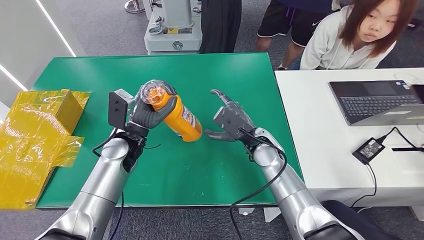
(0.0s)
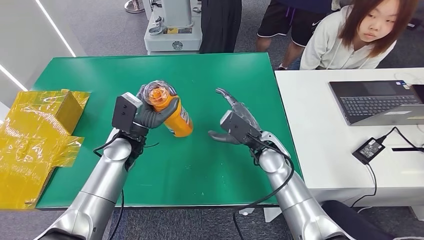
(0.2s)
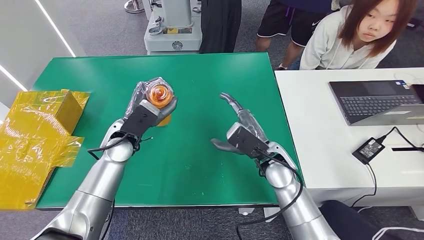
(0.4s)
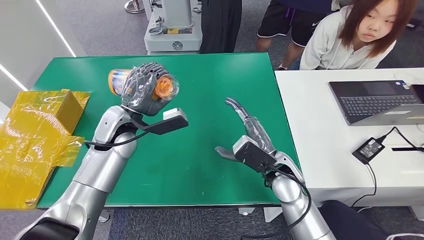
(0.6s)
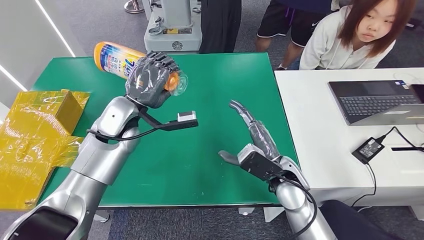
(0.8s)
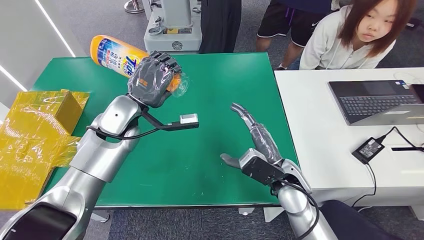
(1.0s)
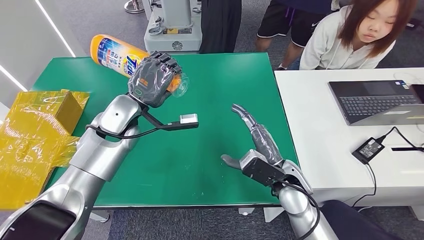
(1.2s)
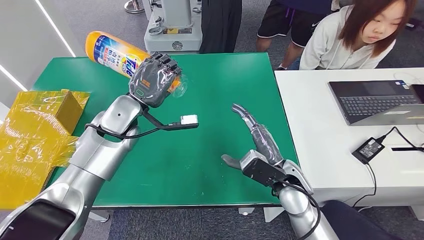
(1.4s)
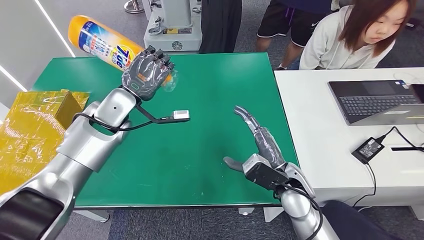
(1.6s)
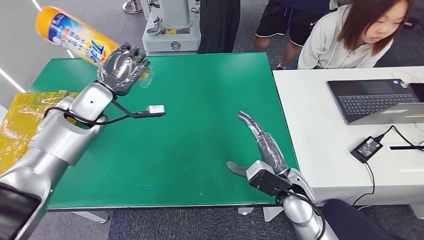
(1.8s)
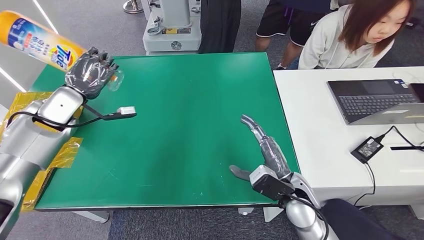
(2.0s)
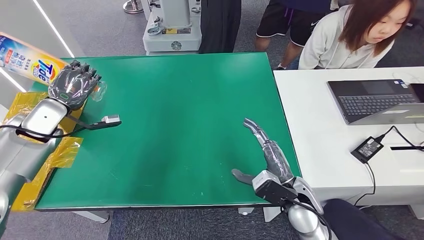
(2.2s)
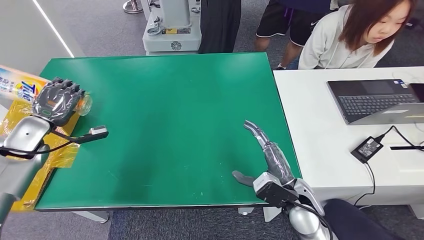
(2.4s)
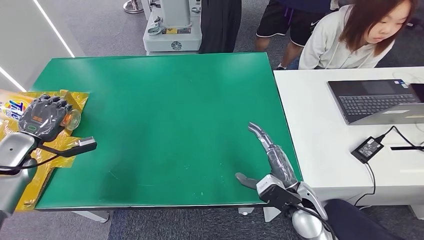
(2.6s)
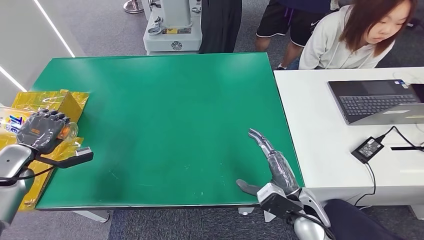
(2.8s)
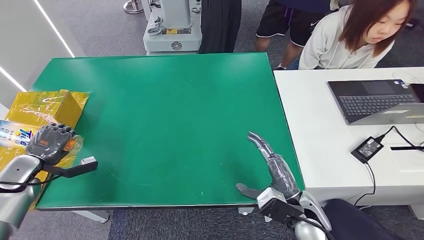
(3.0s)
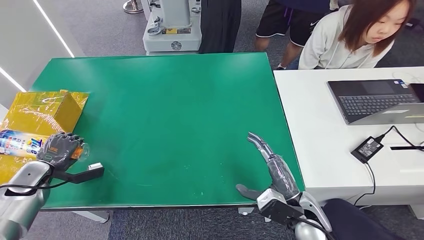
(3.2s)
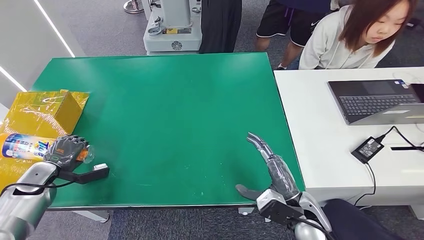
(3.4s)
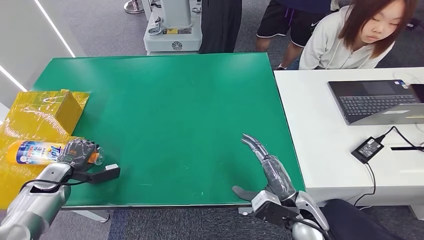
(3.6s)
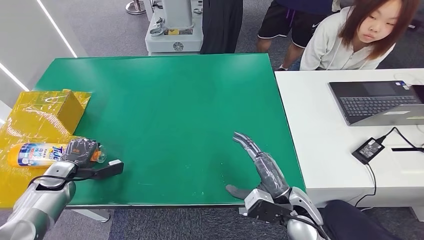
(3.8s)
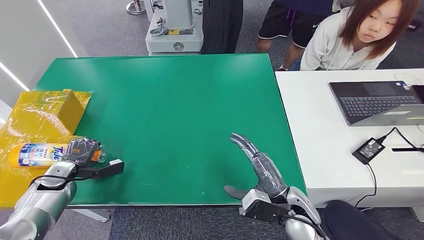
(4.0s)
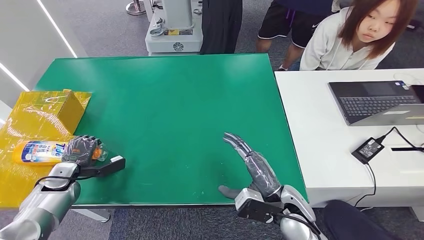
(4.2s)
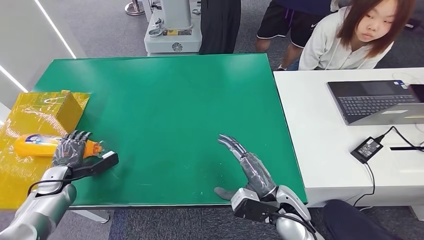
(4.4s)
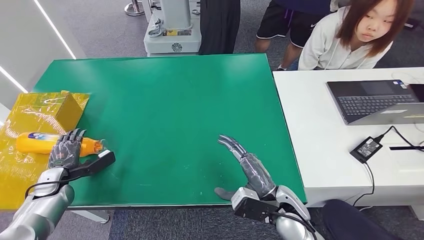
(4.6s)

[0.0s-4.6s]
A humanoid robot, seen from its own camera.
Step, 0.0s to 4.6s: Turn the bottle to the front side.
3.0s to 4.6s: The left hand moves downward, approximately 5 cm.

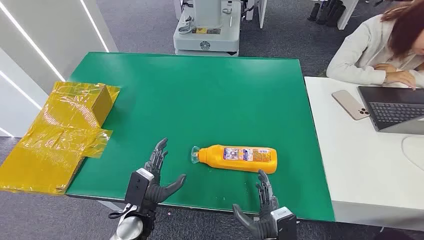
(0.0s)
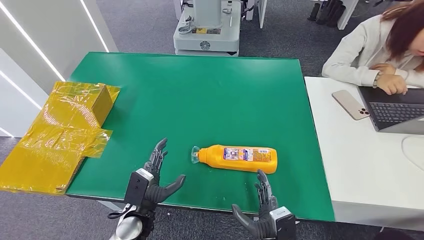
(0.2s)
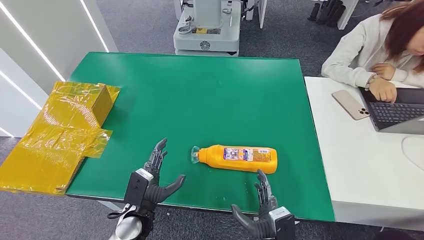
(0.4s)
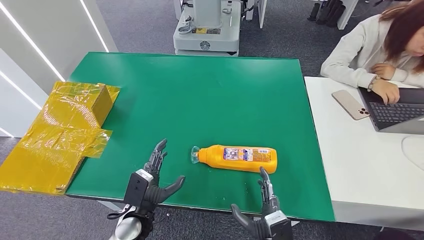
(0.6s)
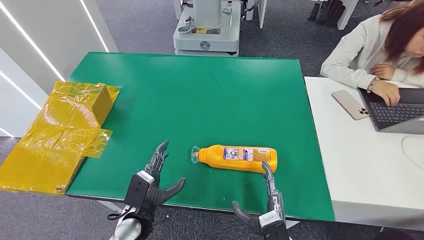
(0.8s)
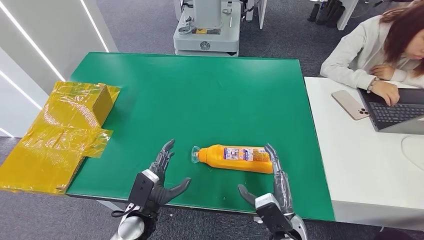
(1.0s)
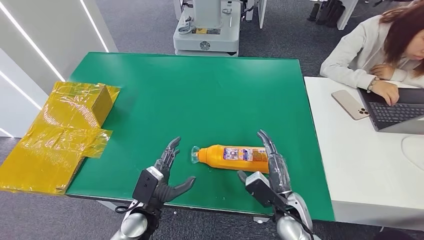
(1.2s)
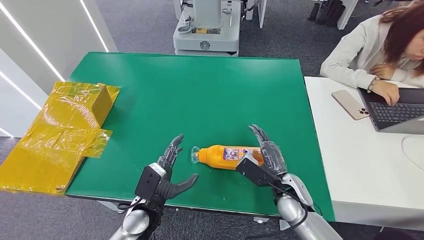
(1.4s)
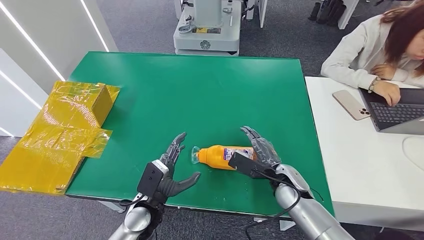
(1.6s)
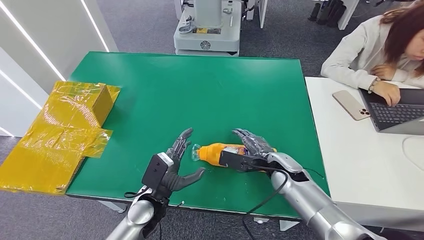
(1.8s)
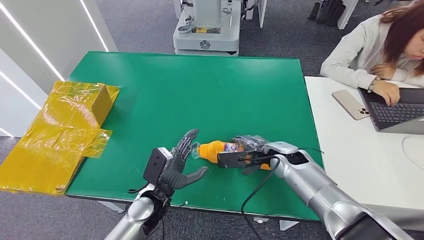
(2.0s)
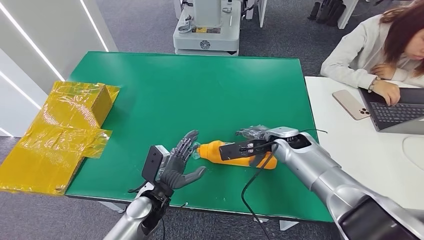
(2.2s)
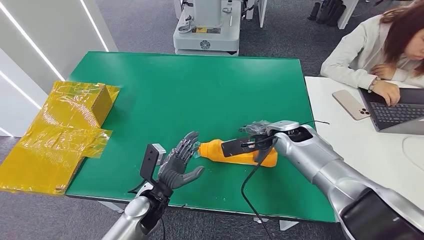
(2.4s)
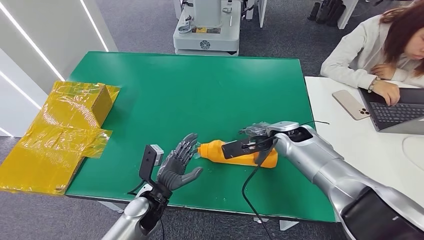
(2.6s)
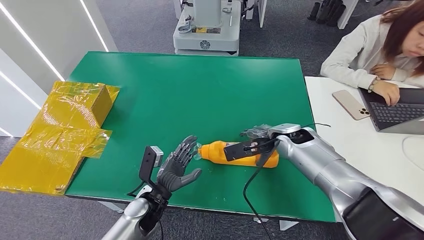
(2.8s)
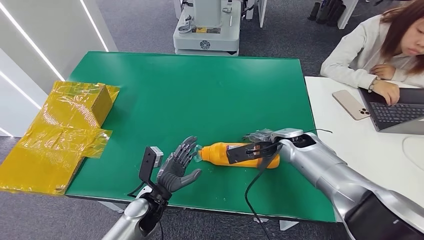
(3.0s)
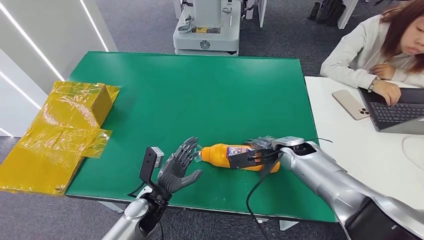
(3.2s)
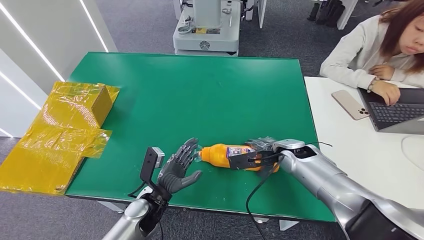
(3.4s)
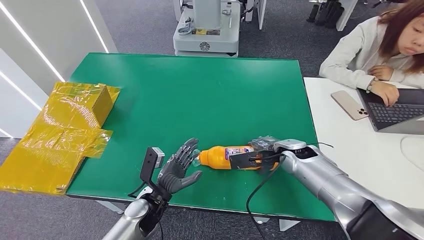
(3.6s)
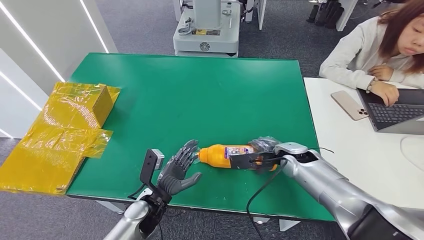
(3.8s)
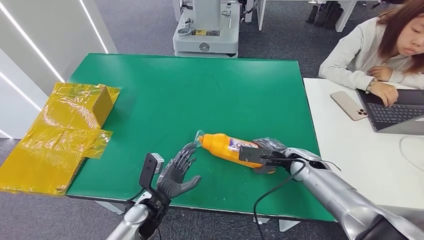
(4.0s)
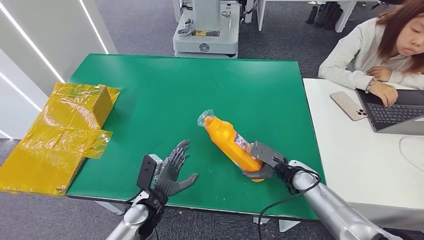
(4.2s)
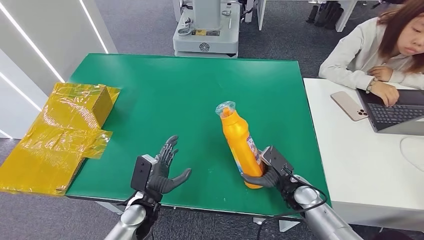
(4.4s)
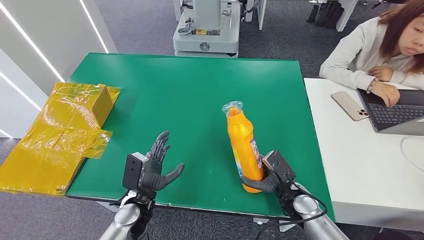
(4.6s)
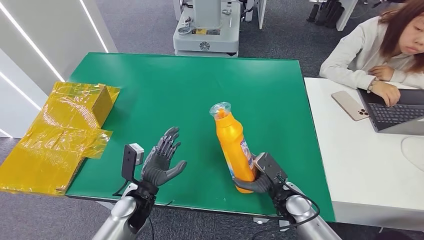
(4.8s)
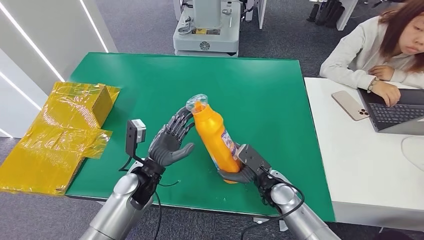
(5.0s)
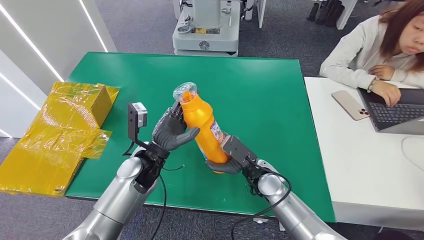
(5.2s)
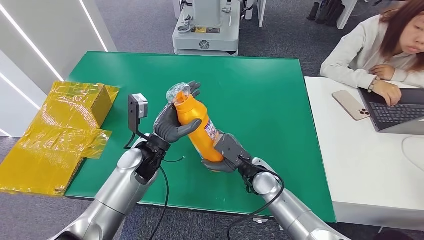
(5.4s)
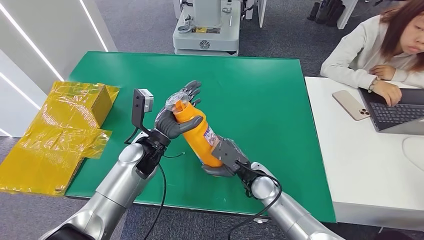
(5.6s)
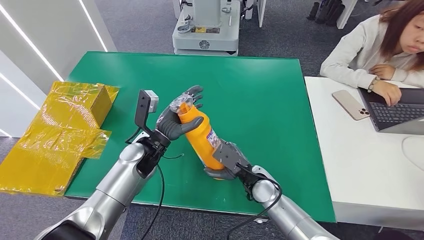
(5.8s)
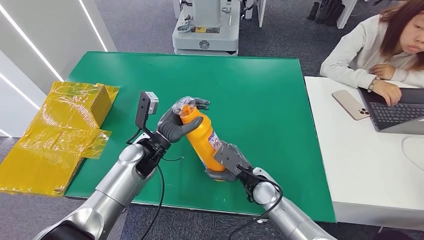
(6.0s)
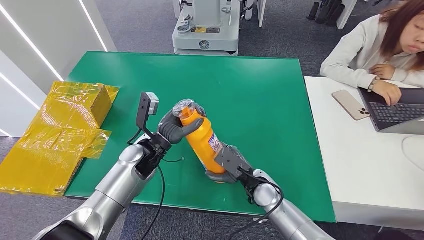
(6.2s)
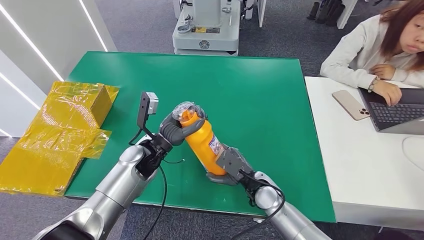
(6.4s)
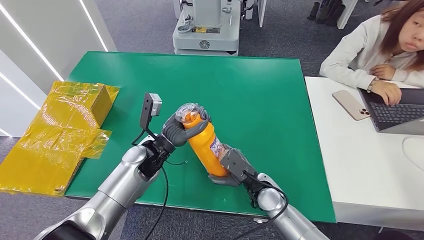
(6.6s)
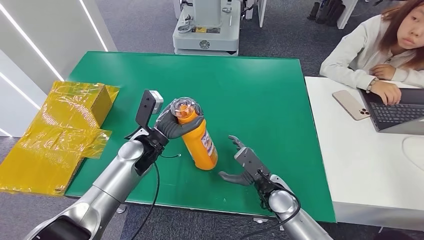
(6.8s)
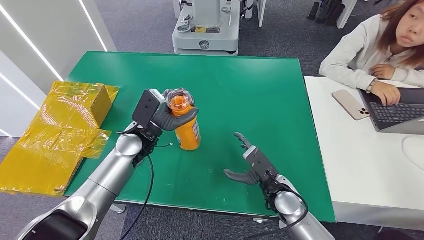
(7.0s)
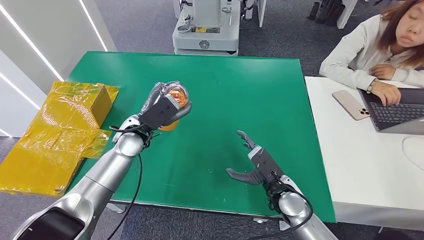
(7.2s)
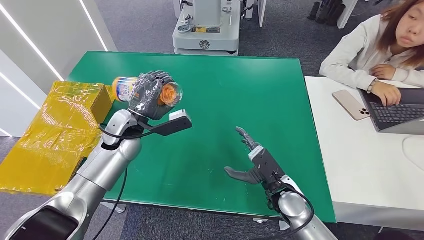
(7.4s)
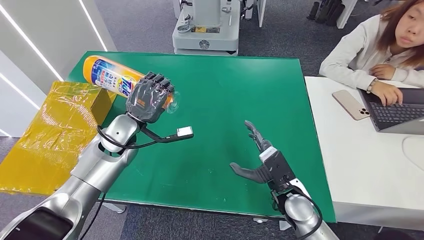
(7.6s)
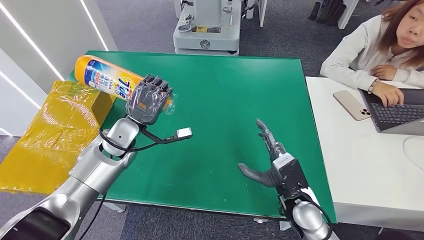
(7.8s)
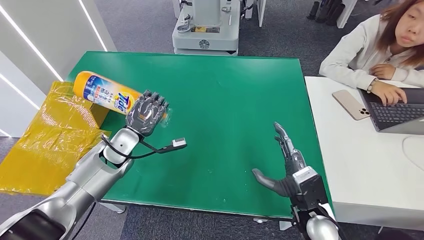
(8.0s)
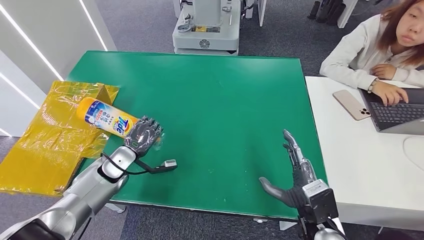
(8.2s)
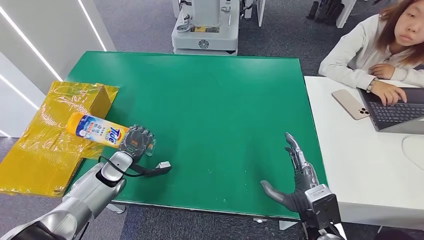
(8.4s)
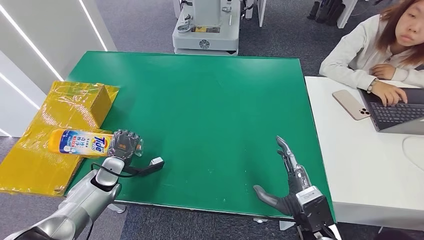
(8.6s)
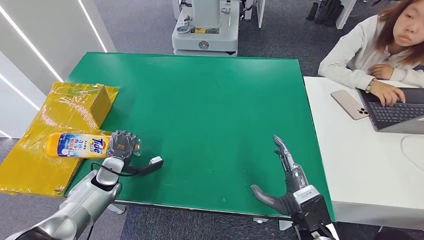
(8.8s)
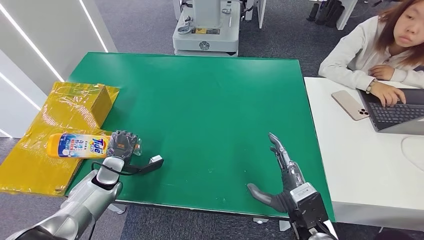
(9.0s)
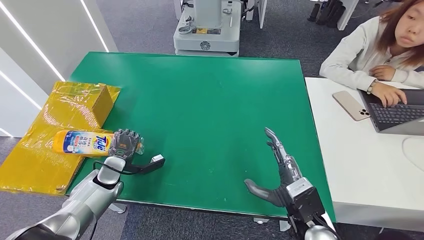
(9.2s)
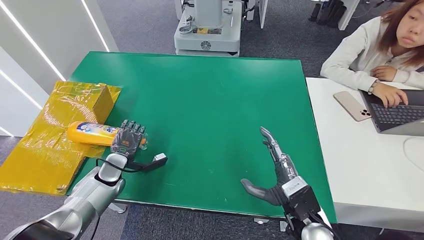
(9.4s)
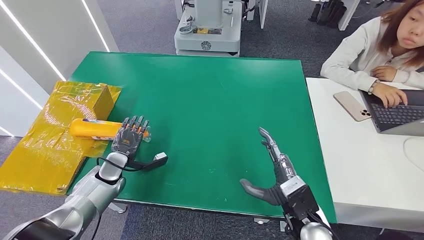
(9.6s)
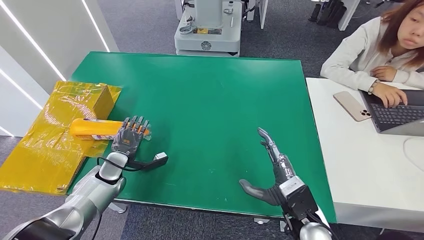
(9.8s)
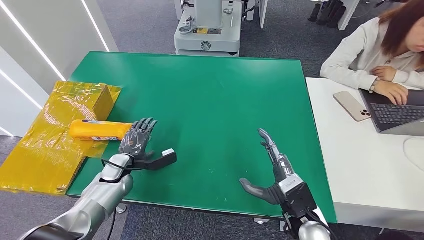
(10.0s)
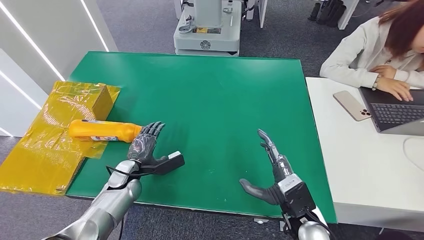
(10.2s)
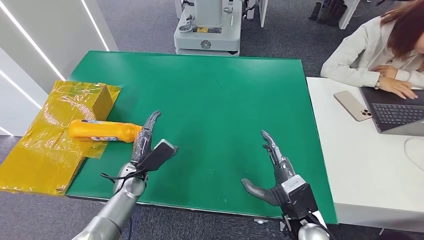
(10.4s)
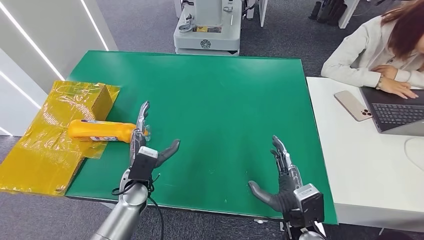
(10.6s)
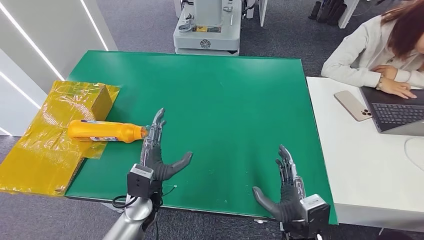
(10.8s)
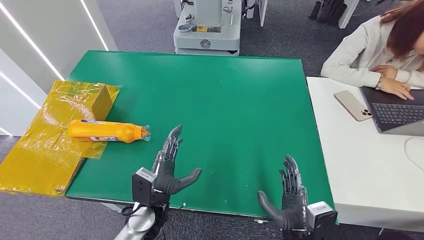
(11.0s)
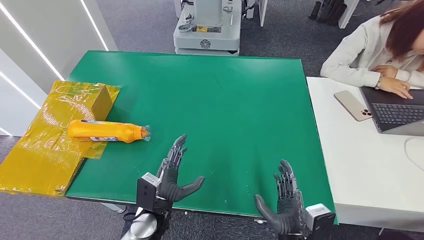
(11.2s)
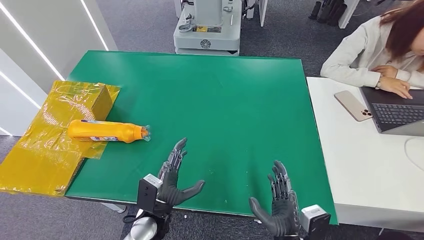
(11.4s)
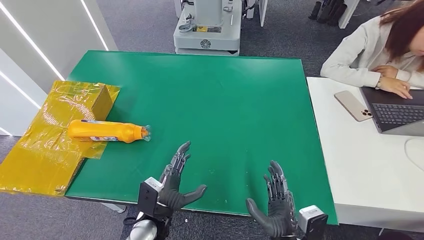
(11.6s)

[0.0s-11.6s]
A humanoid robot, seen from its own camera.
Step, 0.0s to 4.4s: Pick up the bottle from the table.
Step, 4.6s to 11.6s: Turn the bottle to the front side.
1.4s to 2.8s: The right hand shifts about 15 cm forward and upward.
5.8s to 7.2s: The right hand moves to the right, approximately 5 cm. Meanwhile the left hand ends up roughly 5 cm from where it was.
7.2s to 8.8s: The right hand travels backward by about 10 cm; the left hand moves downward and to the left, roughly 20 cm.
10.2s to 11.6s: The left hand moves backward and to the right, some 20 cm. The right hand goes about 10 cm backward.
